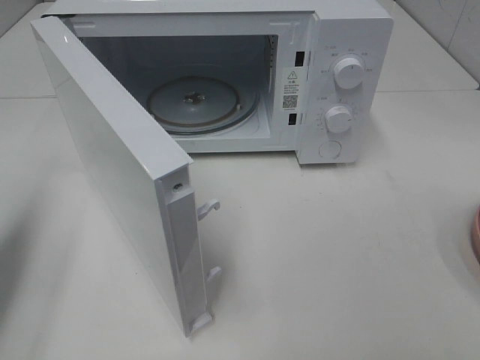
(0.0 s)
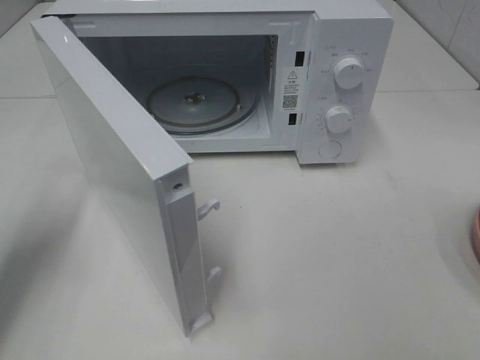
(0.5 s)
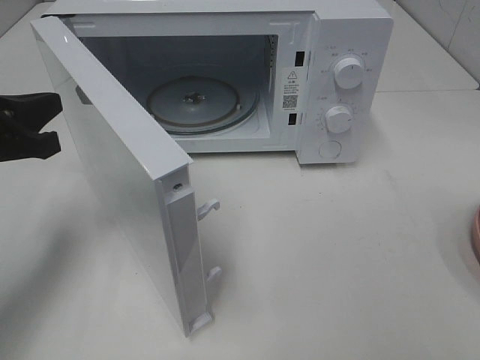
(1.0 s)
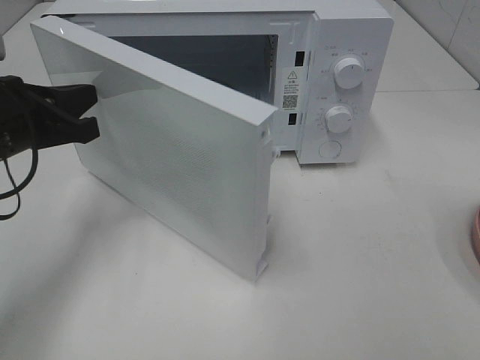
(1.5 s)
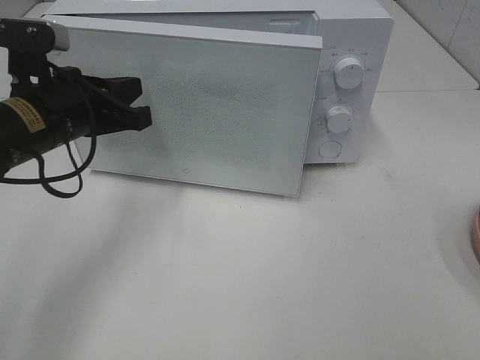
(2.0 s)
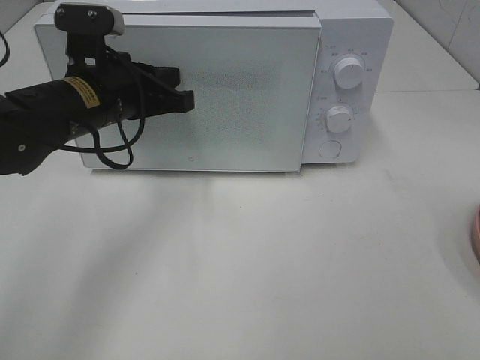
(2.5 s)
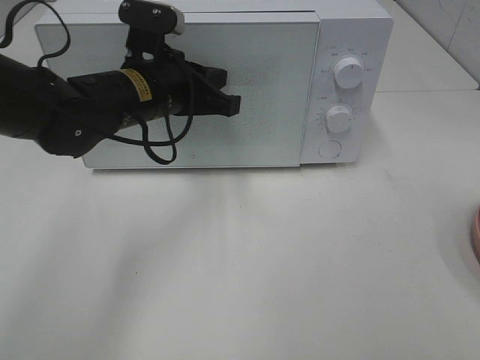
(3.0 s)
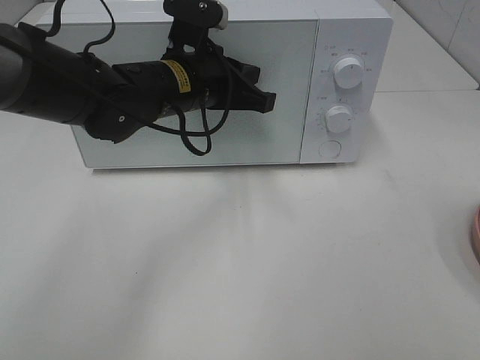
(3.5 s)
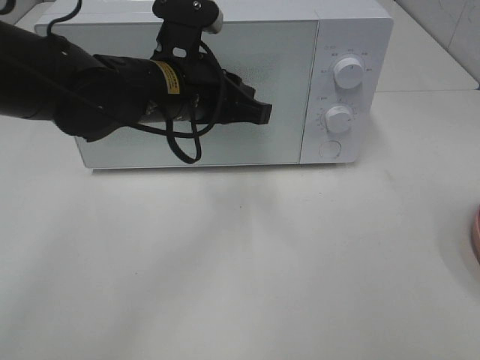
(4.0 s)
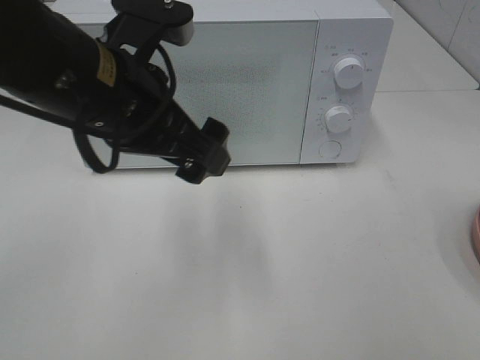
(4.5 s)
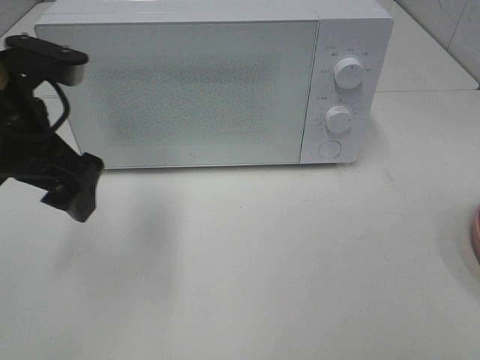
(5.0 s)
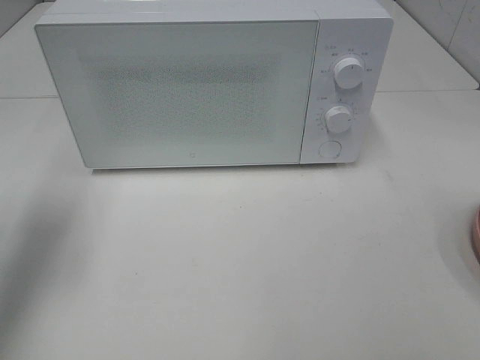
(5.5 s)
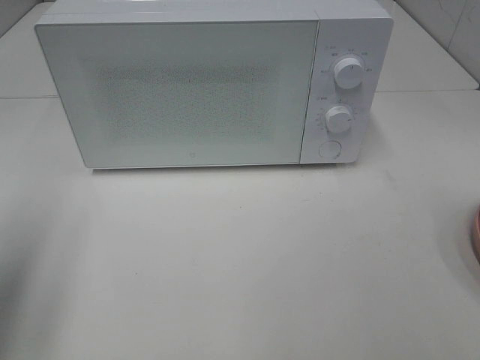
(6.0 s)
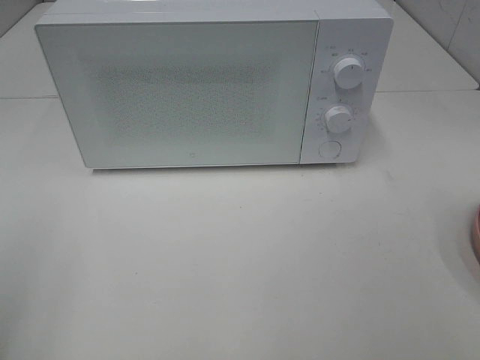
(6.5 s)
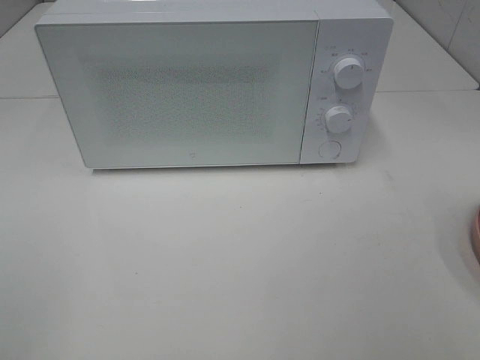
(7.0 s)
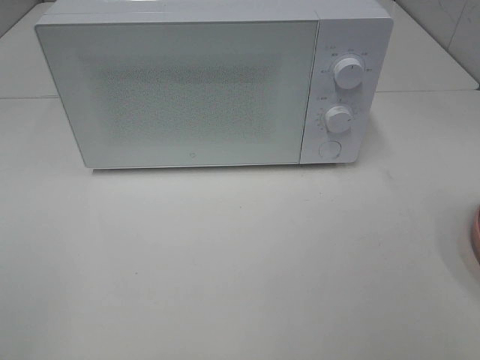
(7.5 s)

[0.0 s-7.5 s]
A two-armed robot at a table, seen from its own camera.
Task of the whole recording: Heat the burger.
Step, 0.0 to 3.5 s: Left hand: close the microwave door.
0.0 to 2.0 s: The left gripper goes approximately 20 cm to the right and forward.
2.0 to 4.0 s: The left gripper moves to the right, some 10 cm.
4.0 to 5.5 s: The left gripper shifts roughly 25 cm to the left, and opens up.
5.5 to 7.5 s: The left gripper is displaced backward by approximately 25 cm.

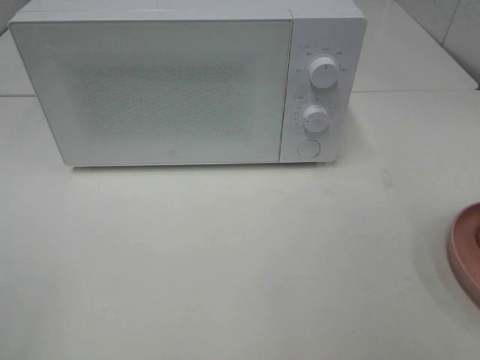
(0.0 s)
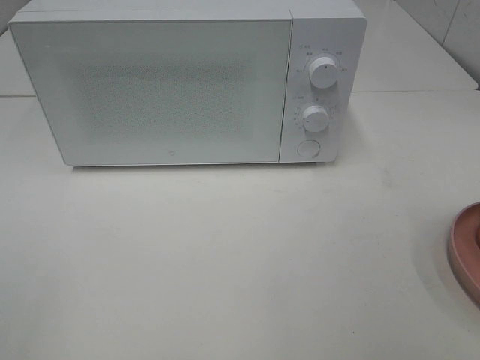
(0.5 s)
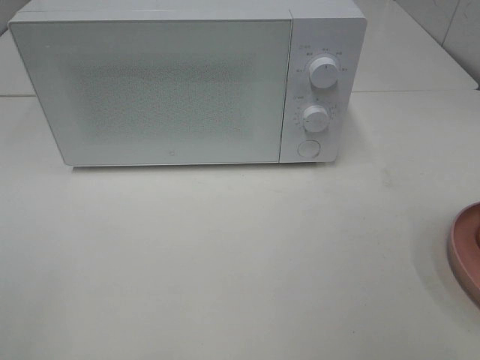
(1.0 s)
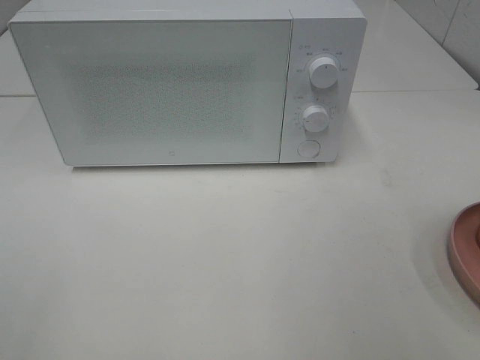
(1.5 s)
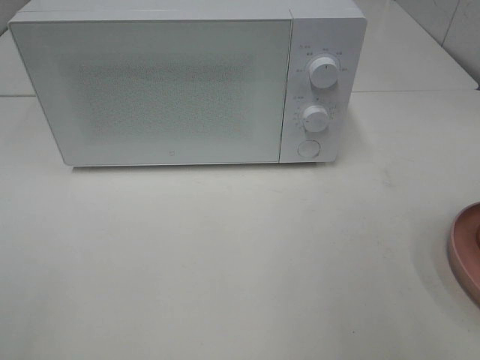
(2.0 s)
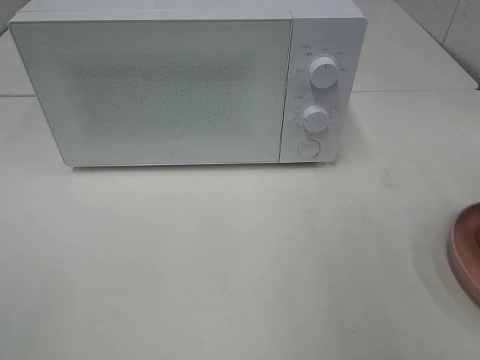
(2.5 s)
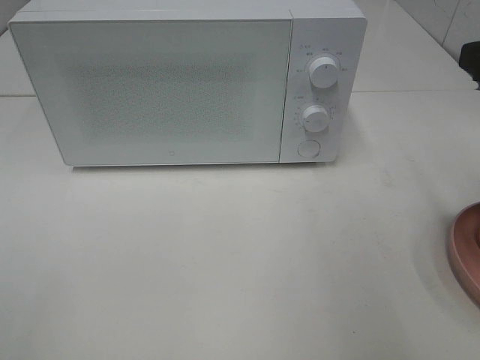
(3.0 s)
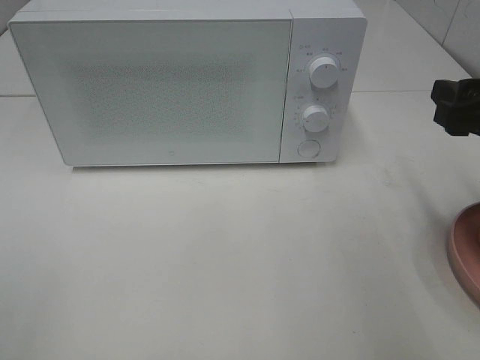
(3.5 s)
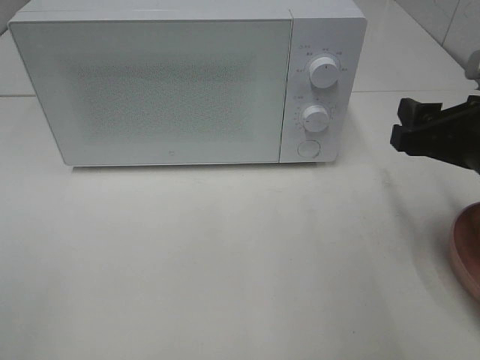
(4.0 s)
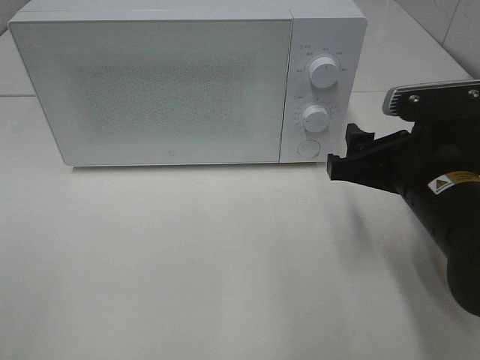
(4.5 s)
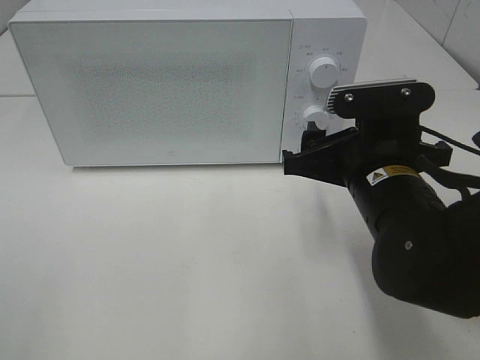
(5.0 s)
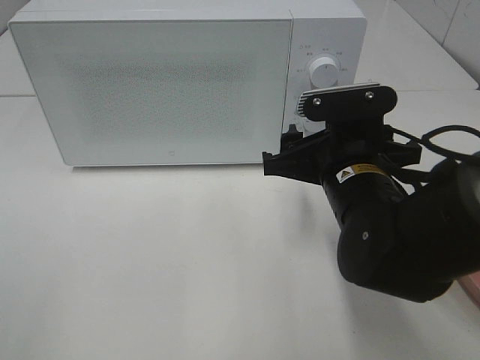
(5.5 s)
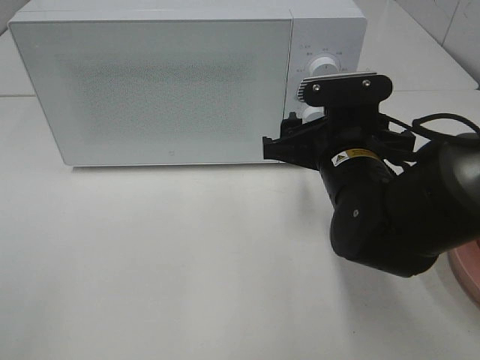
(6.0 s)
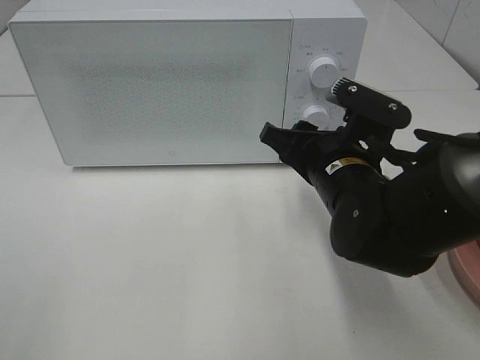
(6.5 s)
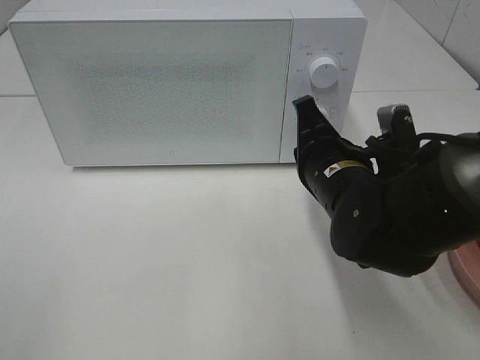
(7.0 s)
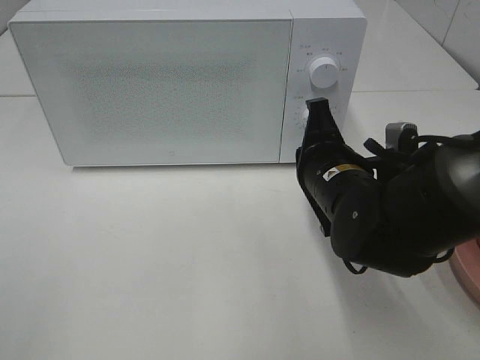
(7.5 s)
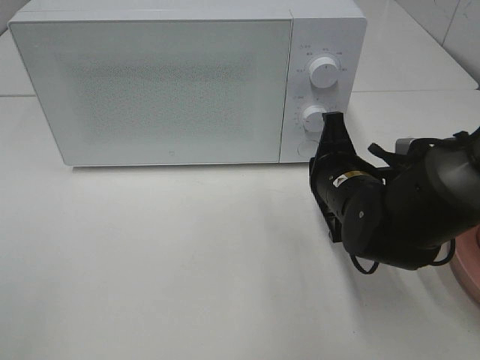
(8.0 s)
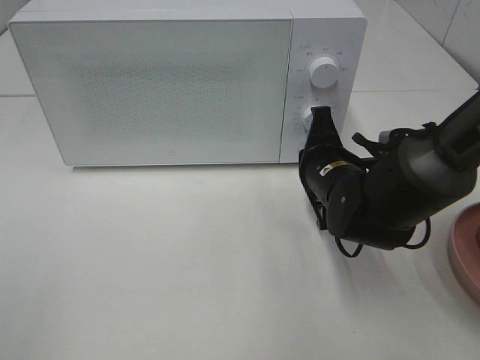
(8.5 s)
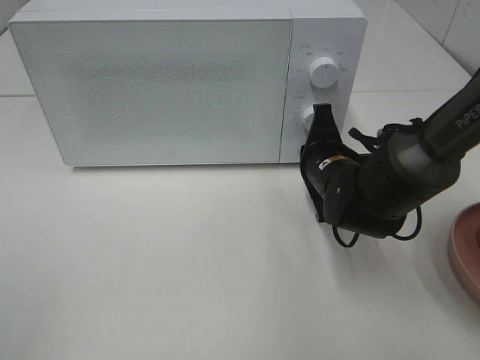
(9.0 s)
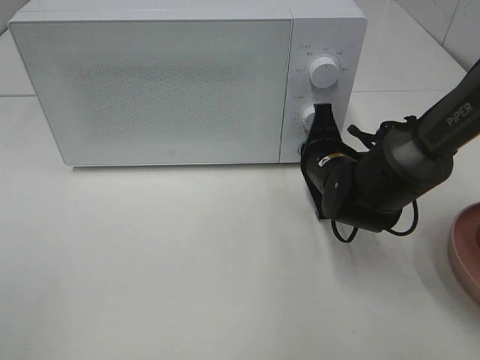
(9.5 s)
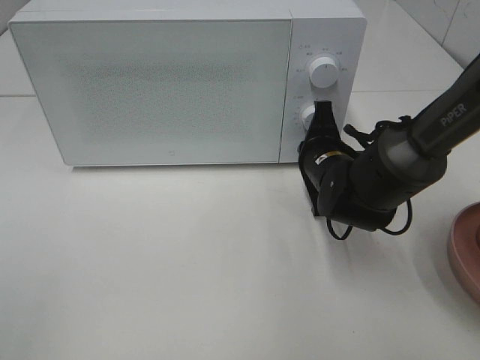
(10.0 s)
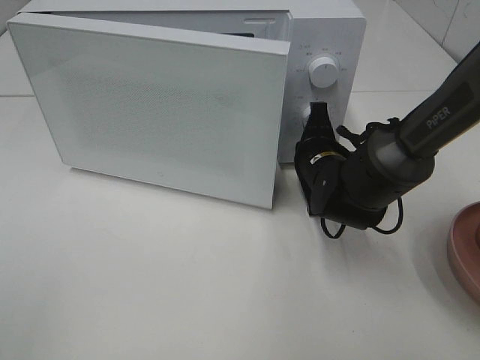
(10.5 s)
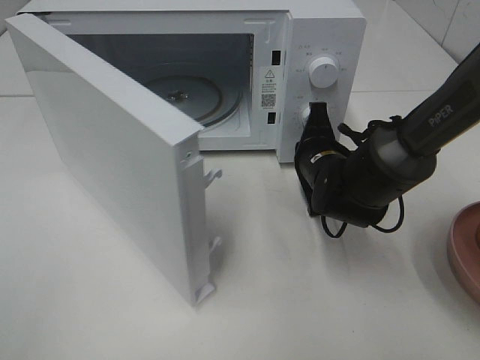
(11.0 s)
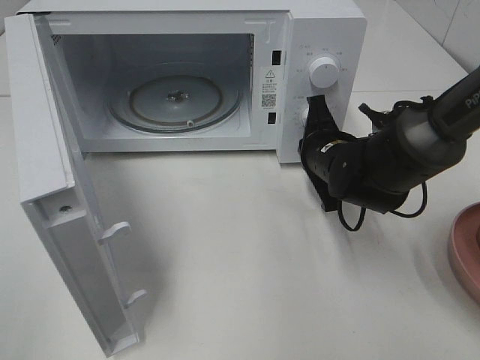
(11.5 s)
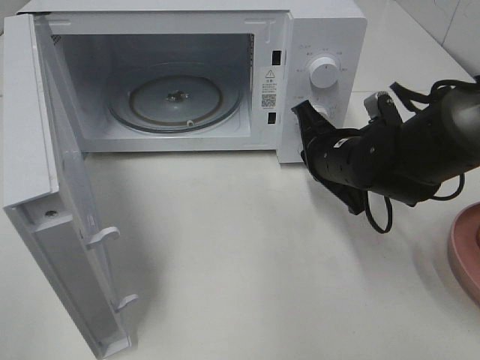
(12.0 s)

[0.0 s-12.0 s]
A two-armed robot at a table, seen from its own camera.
Task of the whole recording: Heat the burger.
Step, 0.0 to 11.5 s: Right hand: press the switch.
2.0 to 4.0 s: The right gripper shifts about 15 cm downward and forward.
4.0 to 6.0 s: The right gripper is displaced to the left by approximately 10 cm.
6.0 to 8.0 s: The right gripper closes.
8.0 to 10.0 s: The right gripper is displaced forward by roughly 5 cm.

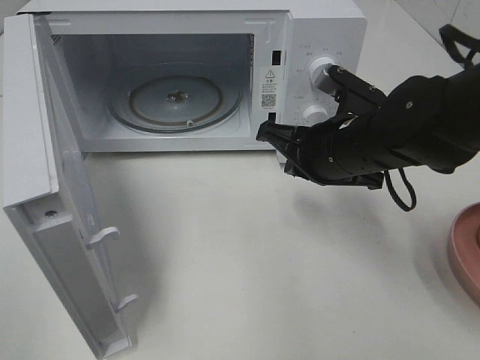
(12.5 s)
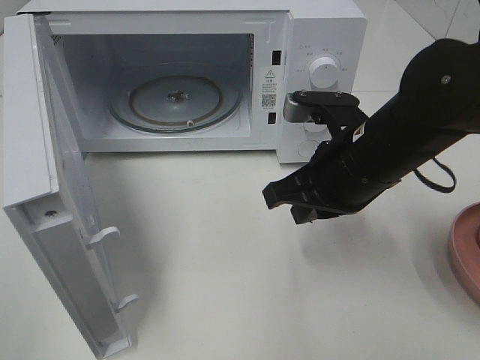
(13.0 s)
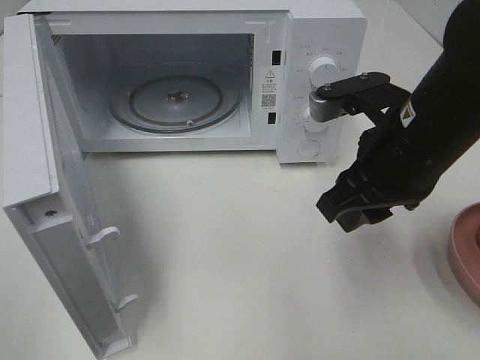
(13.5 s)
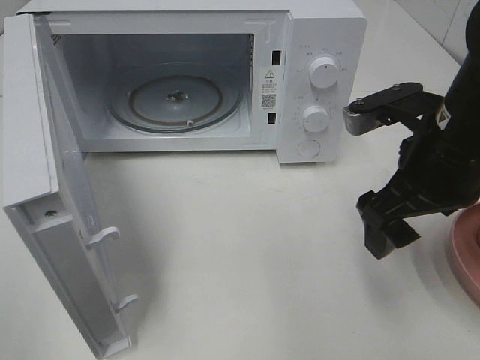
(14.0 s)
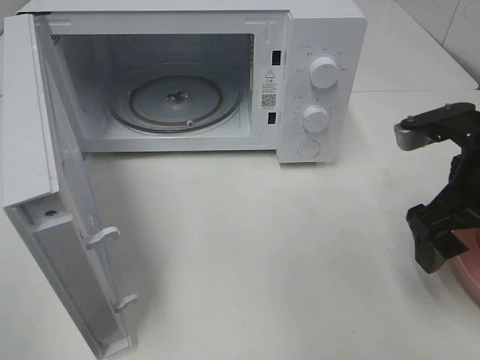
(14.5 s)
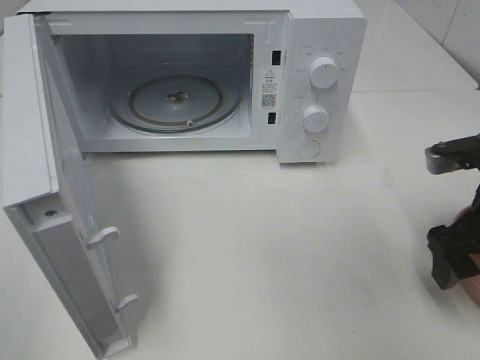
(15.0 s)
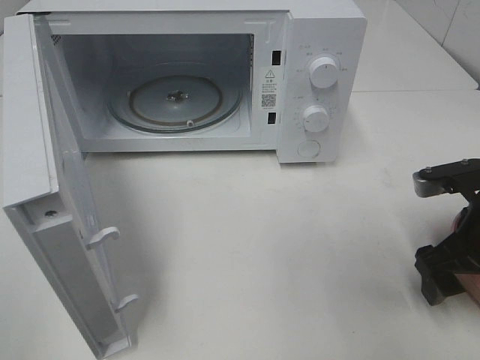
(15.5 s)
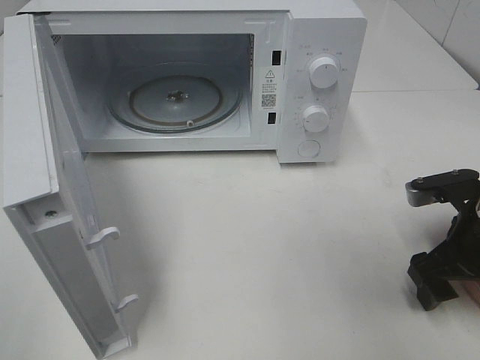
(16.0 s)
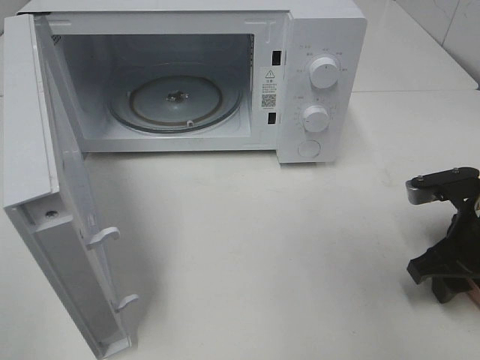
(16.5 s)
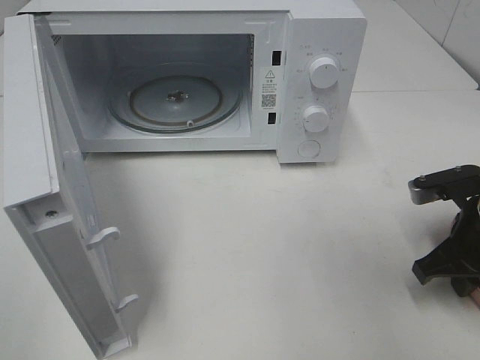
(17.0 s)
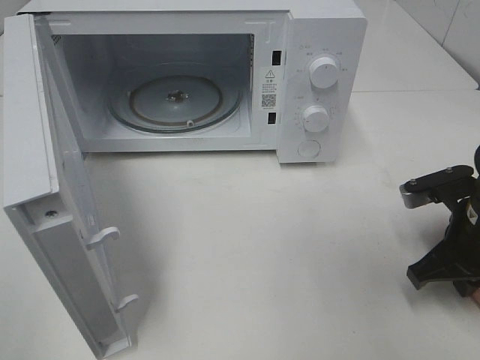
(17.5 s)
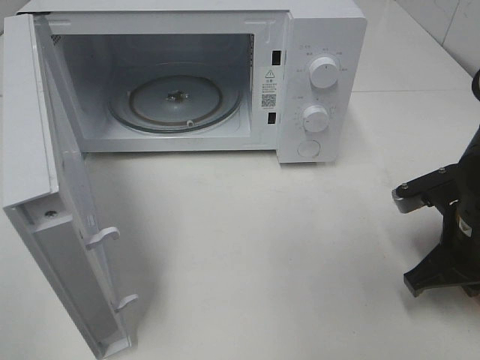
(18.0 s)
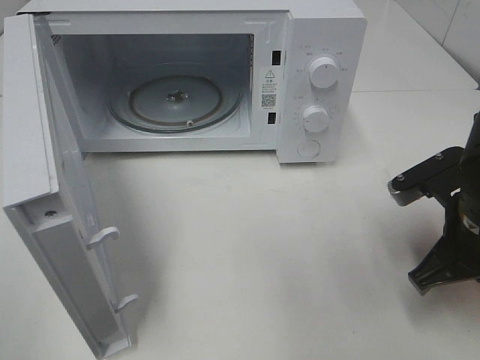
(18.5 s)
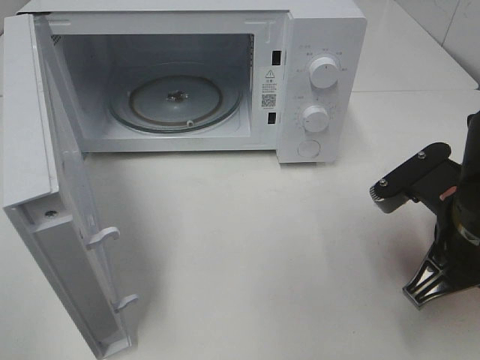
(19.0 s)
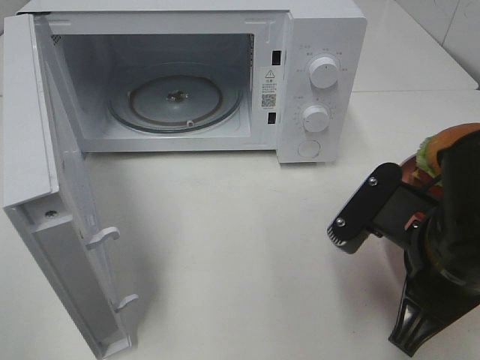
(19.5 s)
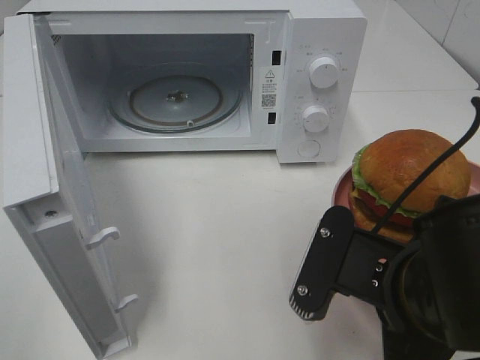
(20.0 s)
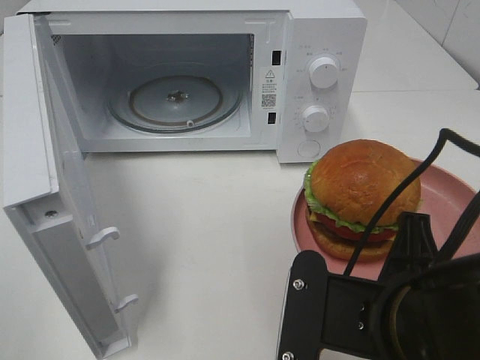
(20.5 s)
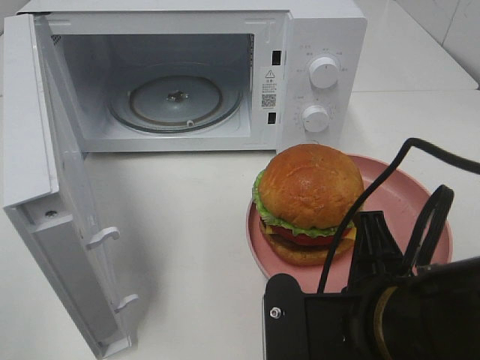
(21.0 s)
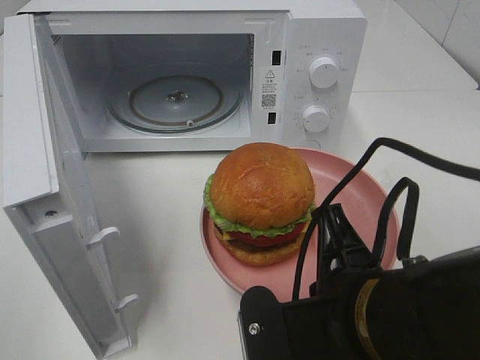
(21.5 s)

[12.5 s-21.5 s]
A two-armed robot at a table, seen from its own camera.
Task of the whole recording: Heat the burger.
Step, 12.5 to 17.0 s: Right hand: grab the plate with the hamburger.
12.5 to 14.5 s: The right gripper travels to the right and backward by roughly 10 cm, and opens.
14.5 to 17.0 s: The right gripper shifts some 10 cm downward, and closes.
17.0 to 19.5 s: The right gripper shifts roughly 15 cm to the left, backward and upward.
19.5 to 21.5 s: The right gripper moves to the left and backward, roughly 10 cm.
